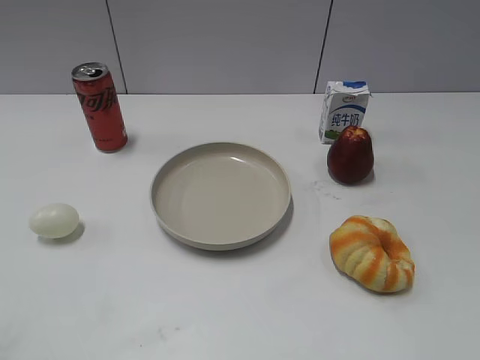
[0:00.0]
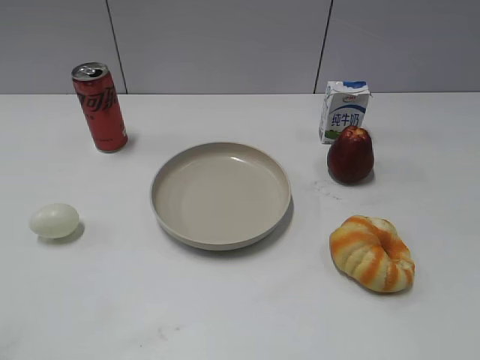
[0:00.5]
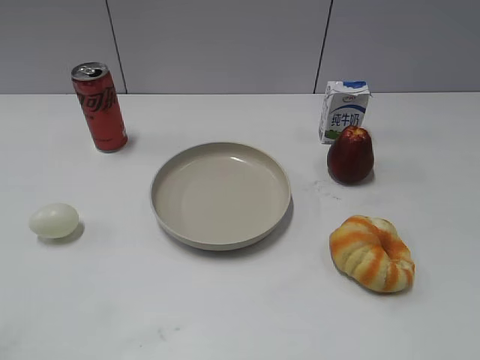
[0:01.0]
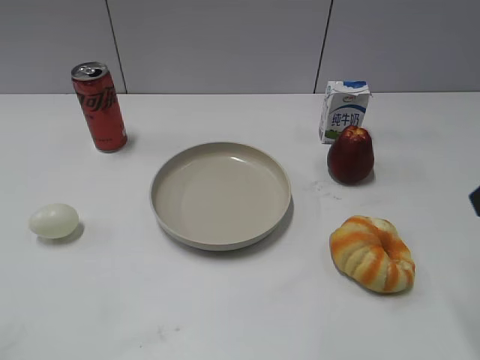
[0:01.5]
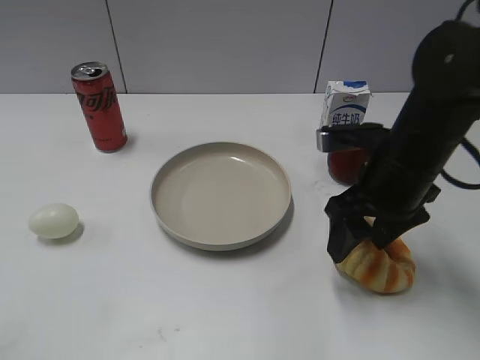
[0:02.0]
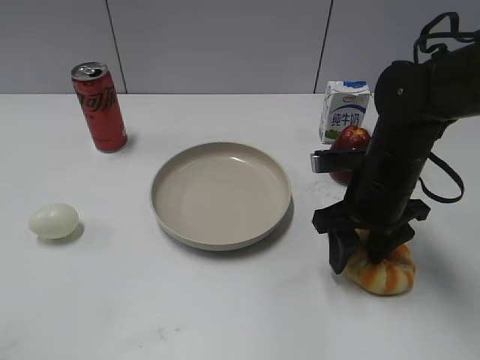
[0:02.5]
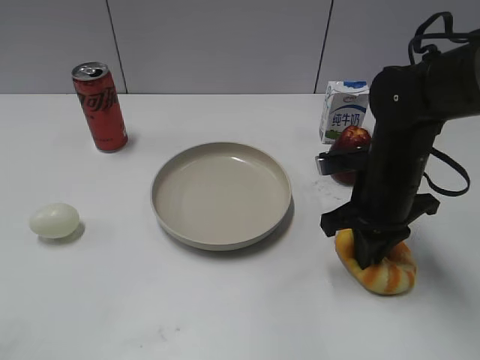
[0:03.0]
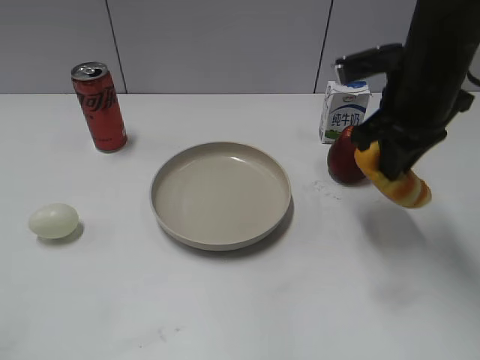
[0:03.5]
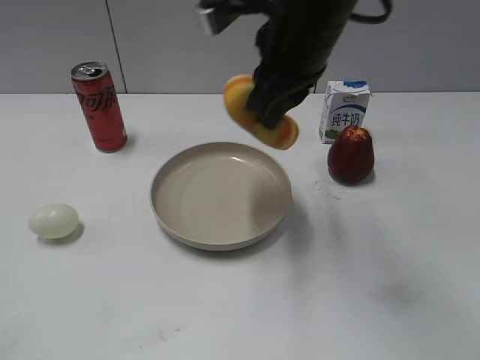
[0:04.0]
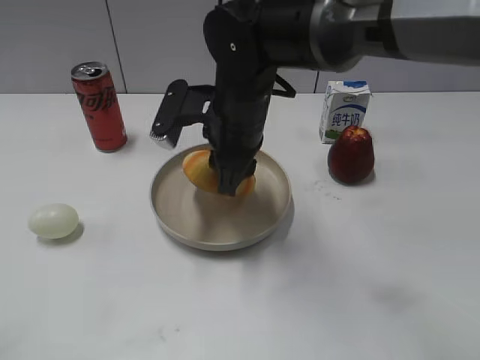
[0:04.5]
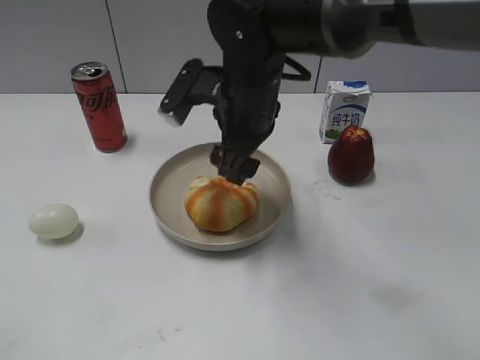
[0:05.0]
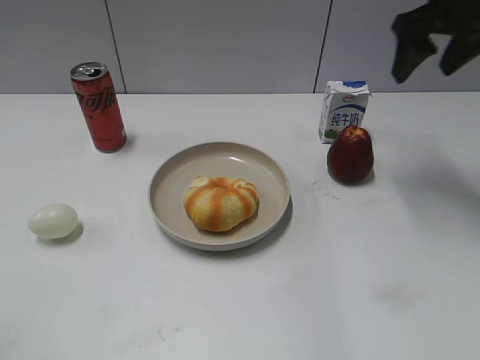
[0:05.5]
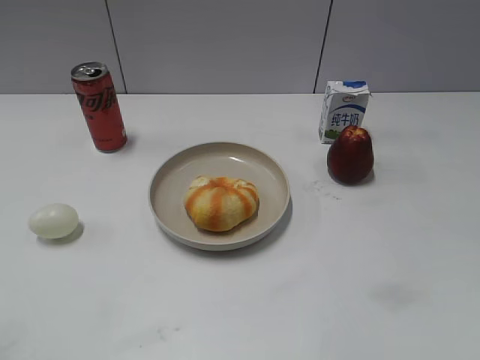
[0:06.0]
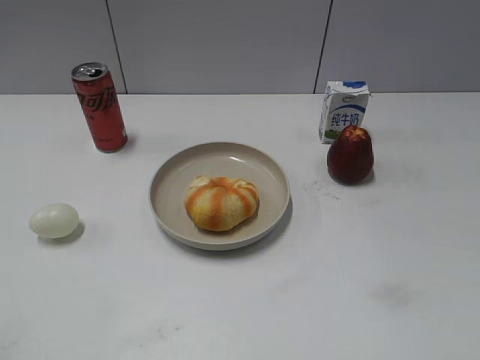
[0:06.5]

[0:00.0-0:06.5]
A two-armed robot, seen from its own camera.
Step, 0:01.0 to 0:02.5: Grasp the round bread with right gripper.
Step, 0:03.0 to 0:05.0: Place the round bread on the plate with right gripper.
0:02.0 to 0:04.5: The right gripper is displaced to the left by about 15 cm, and closes up.
0:04.5 to 0:06.5: The right gripper travels to the right and backward by approximately 40 cm, and opens.
